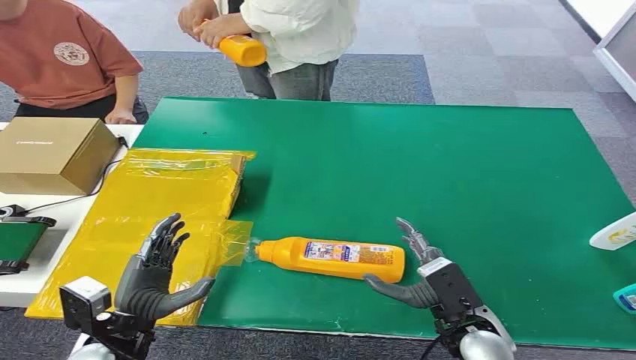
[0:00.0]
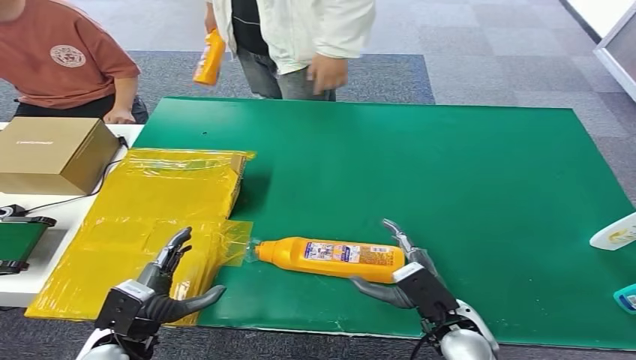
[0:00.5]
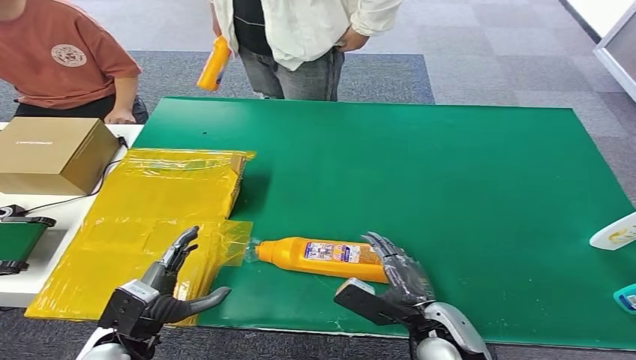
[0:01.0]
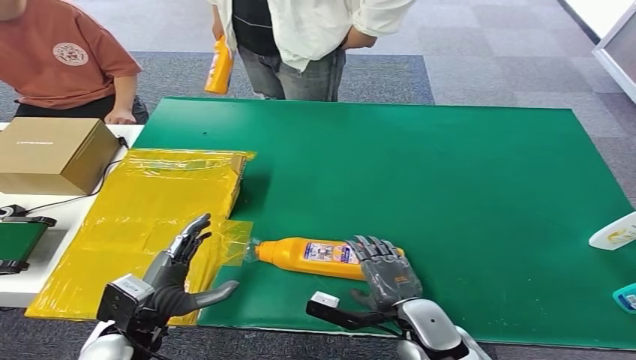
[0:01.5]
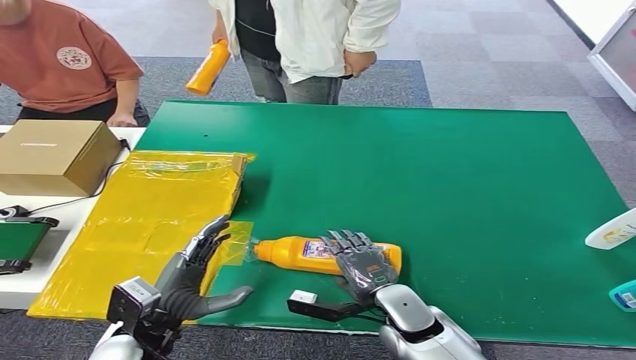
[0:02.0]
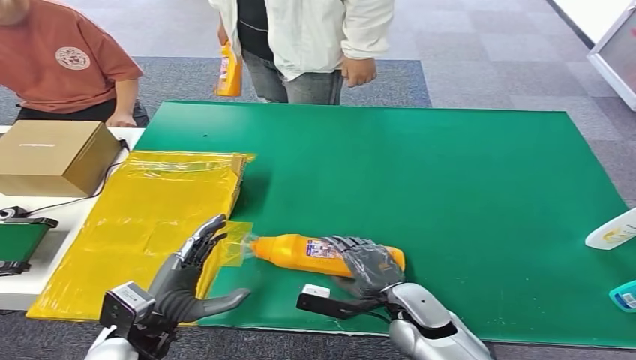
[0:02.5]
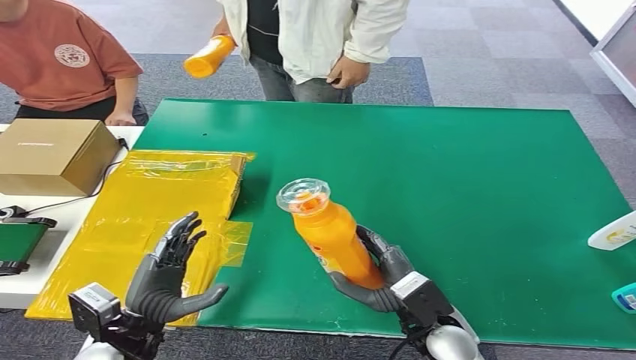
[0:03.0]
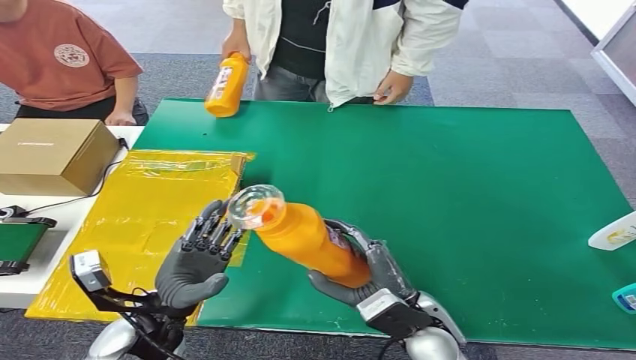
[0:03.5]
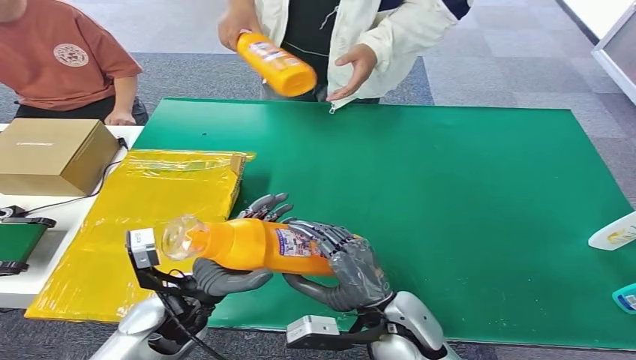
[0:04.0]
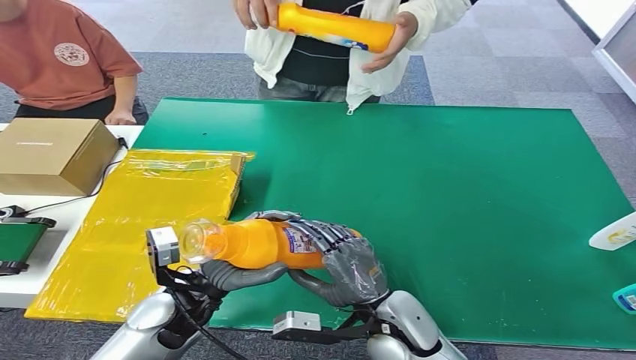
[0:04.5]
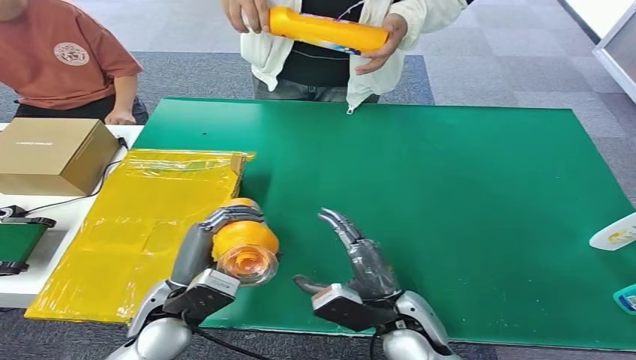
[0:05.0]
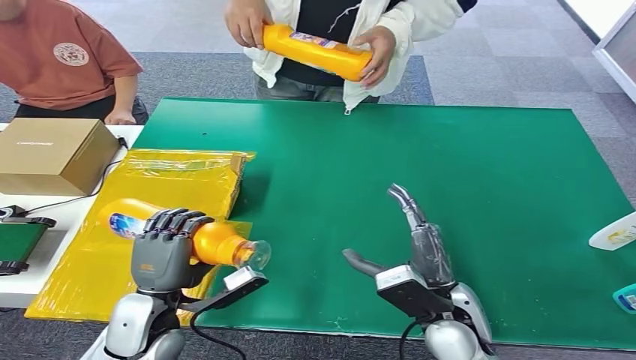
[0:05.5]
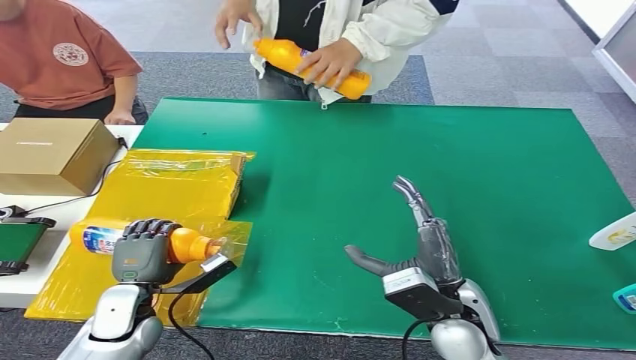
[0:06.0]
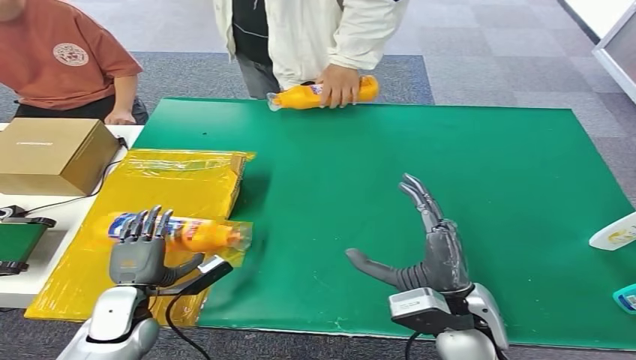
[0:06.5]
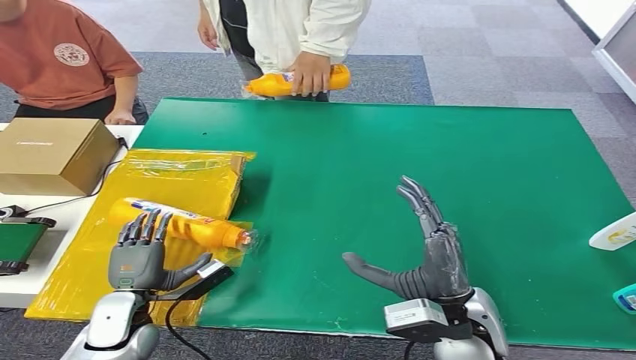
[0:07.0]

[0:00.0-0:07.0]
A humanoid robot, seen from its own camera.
Step, 0:00.0 to 0:02.5: Pick up the bottle from the table.
Step, 0:03.0 to 0:07.0: Turn the bottle to the front side.
